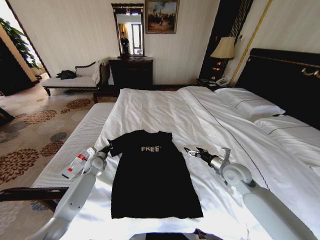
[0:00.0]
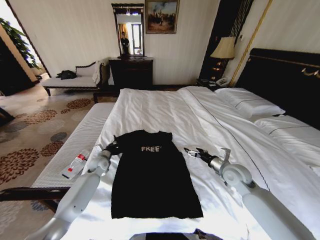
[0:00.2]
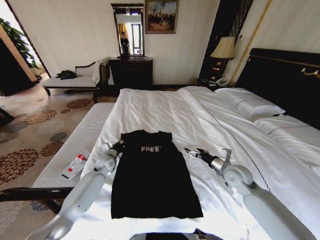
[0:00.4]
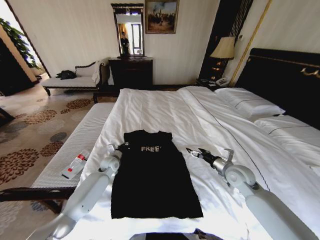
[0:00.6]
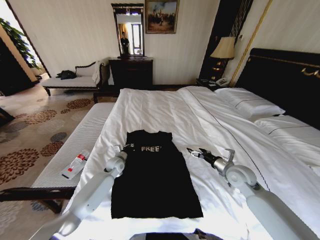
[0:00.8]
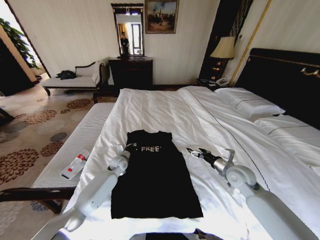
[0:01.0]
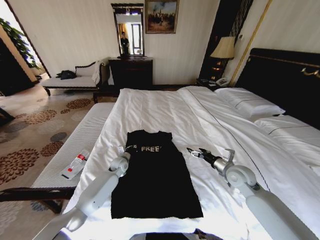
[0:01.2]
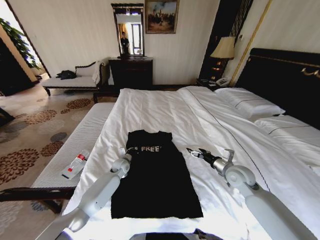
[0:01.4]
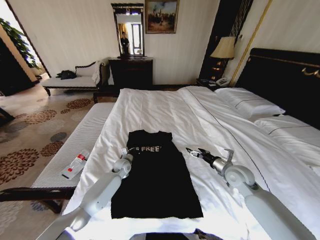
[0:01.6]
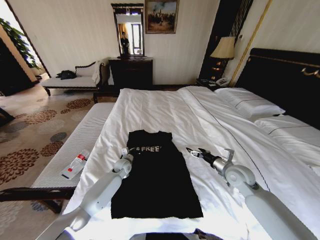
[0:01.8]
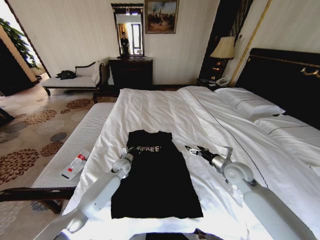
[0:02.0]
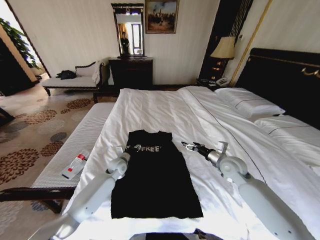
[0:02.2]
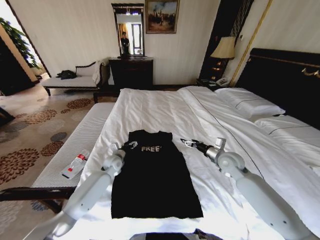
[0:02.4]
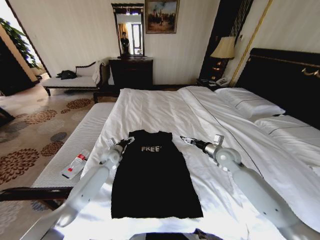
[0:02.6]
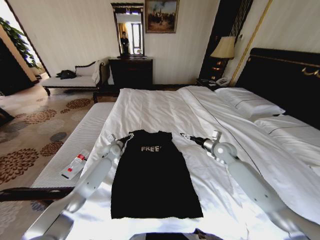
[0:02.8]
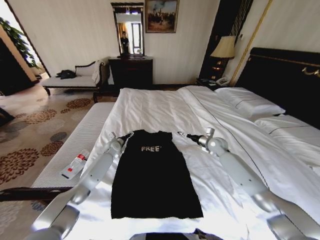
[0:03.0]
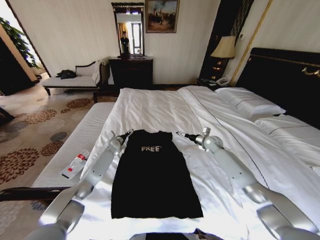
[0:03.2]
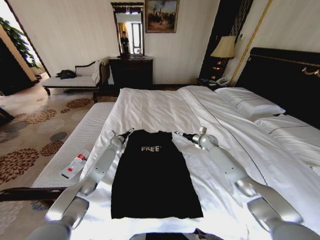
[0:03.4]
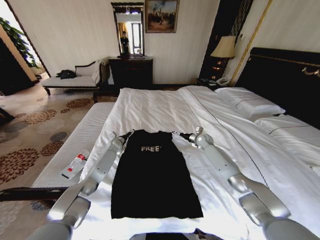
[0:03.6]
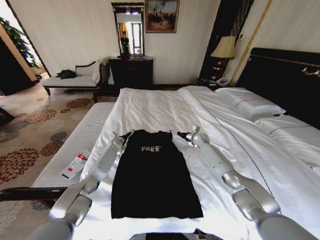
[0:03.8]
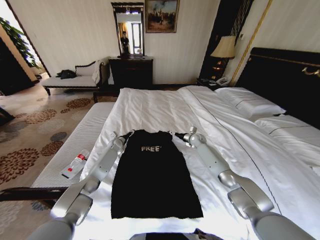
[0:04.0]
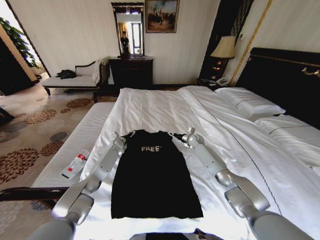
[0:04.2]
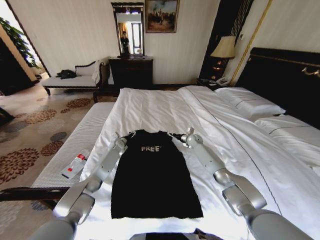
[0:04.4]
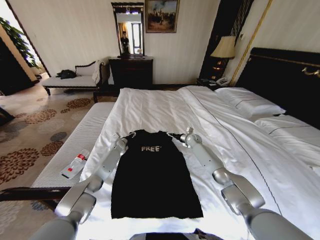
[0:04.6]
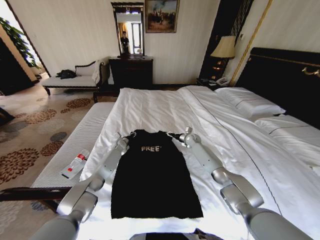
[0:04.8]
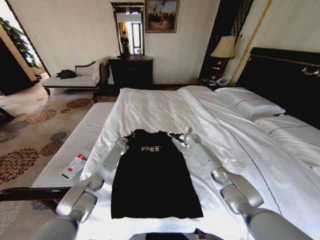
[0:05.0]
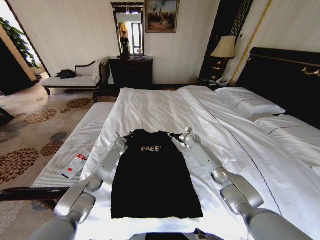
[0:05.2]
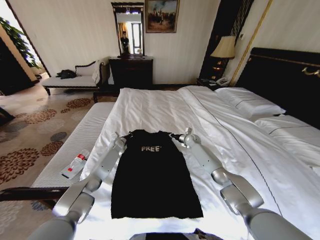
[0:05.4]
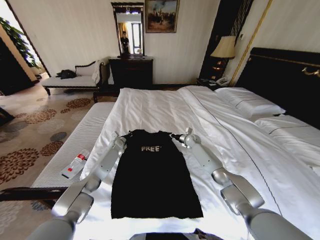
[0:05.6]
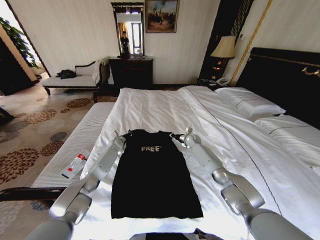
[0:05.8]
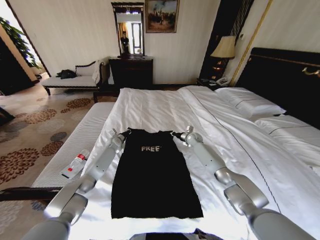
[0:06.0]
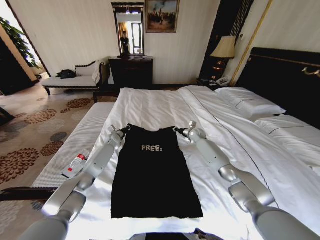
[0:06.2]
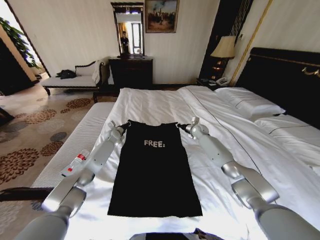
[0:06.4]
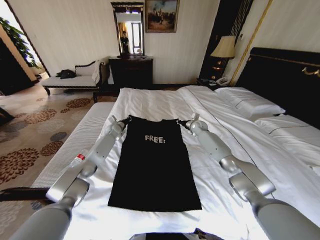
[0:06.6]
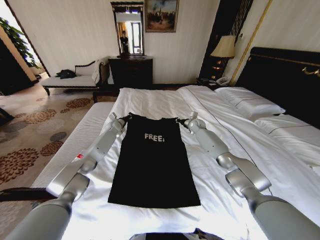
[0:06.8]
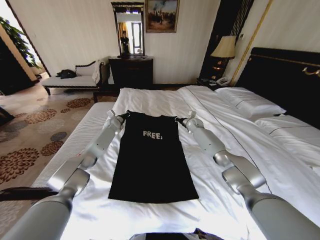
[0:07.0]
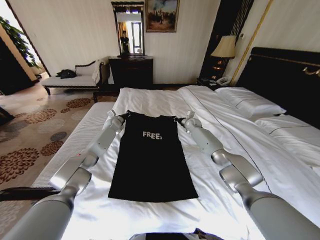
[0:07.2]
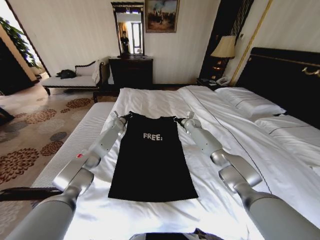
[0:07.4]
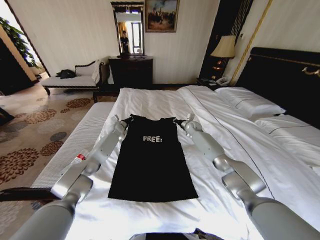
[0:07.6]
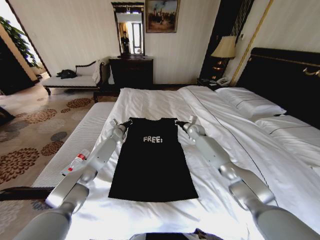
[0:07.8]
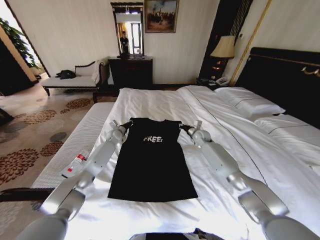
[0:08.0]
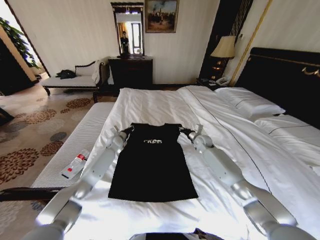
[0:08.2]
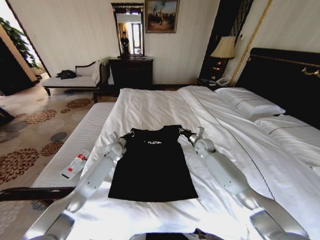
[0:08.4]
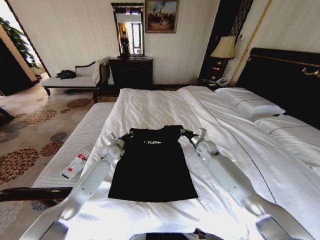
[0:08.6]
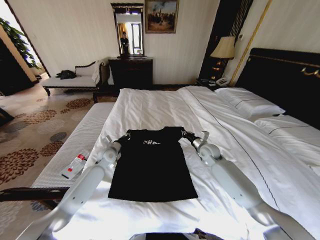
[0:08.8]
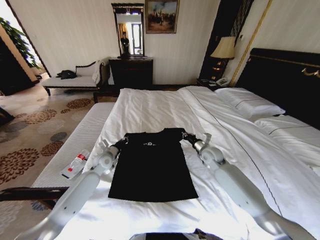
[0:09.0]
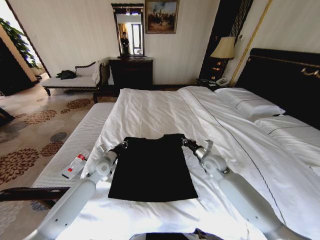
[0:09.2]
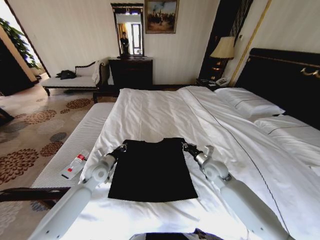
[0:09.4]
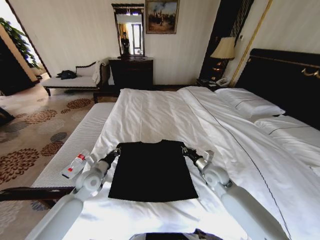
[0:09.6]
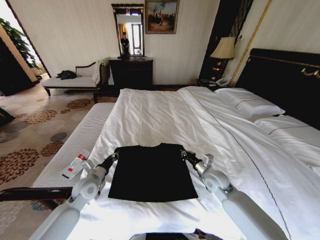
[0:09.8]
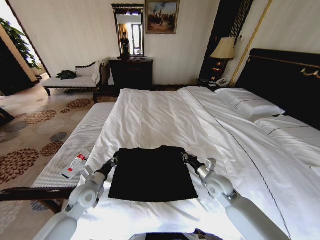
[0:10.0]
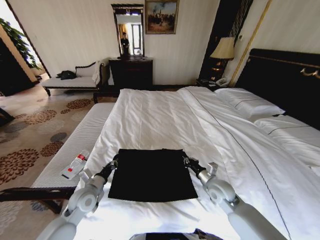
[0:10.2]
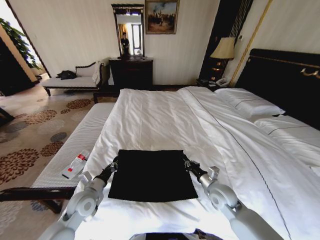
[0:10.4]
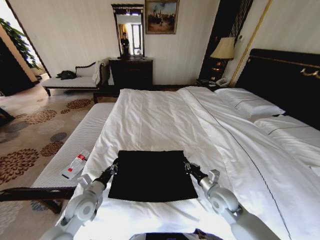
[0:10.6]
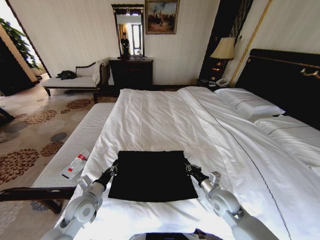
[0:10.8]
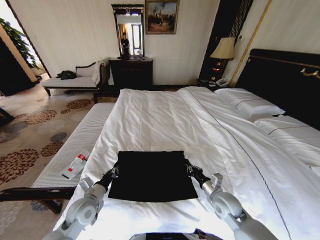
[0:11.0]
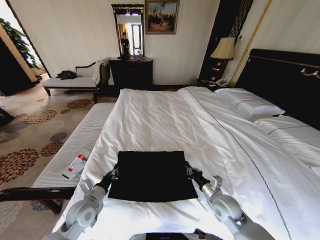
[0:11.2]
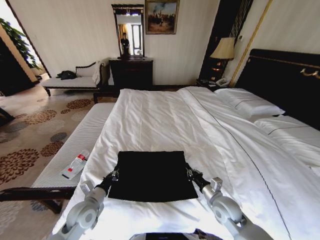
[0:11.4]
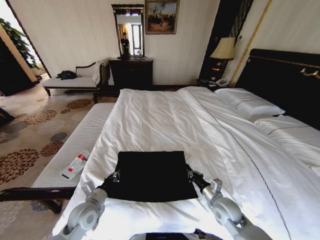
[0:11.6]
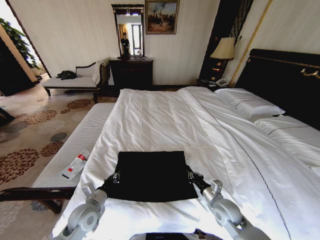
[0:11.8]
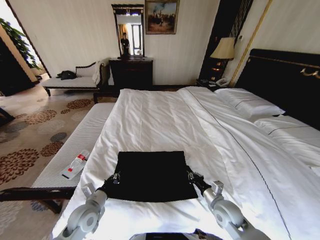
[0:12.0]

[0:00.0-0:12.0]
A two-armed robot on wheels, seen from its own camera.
Task of the whole recording: Fold the clothes on the bed.
0.0 to 1.6 s: The left gripper travels to the right by approximately 15 cm.
1.6 to 3.0 s: The right gripper moves forward, about 20 cm, while the left gripper travels forward, to the left and upward by about 15 cm, and opens.
3.0 to 4.4 s: The left gripper shifts by approximately 5 cm; the right gripper goes approximately 15 cm forward, to the left and downward.
4.4 to 6.0 s: The right gripper closes; the left gripper closes its fingers.
6.0 to 7.6 s: The right gripper heads upward, covering roughly 5 cm; the left gripper goes some 10 cm upward and forward.
7.6 to 9.0 s: Both grippers move backward, approximately 20 cm.
9.0 to 10.4 s: Both grippers travel together backward, roughly 15 cm.
10.4 to 12.0 s: The right gripper goes some 5 cm backward.

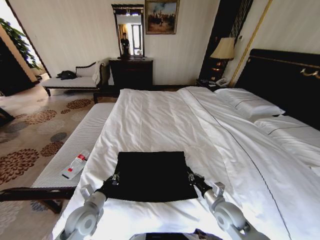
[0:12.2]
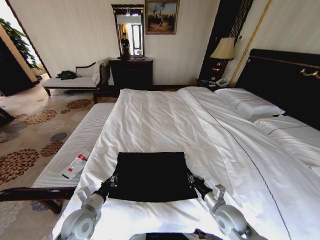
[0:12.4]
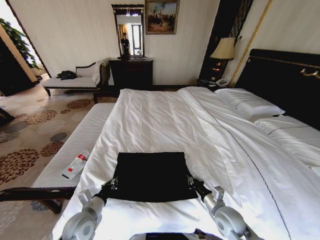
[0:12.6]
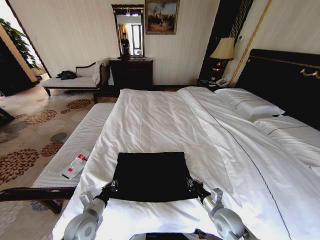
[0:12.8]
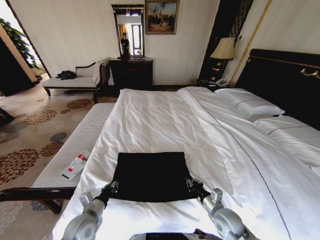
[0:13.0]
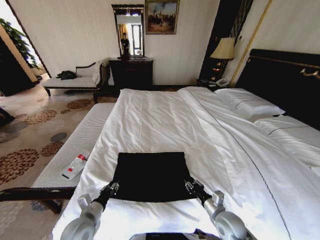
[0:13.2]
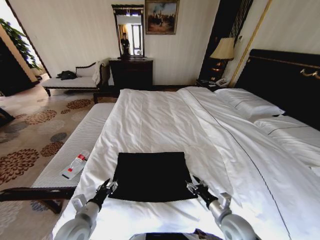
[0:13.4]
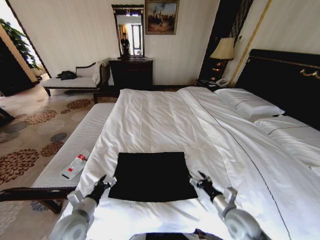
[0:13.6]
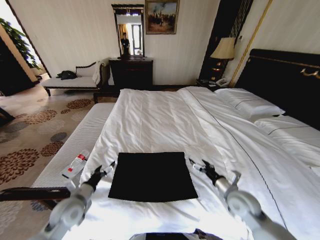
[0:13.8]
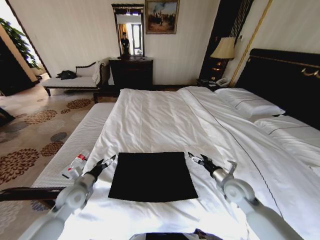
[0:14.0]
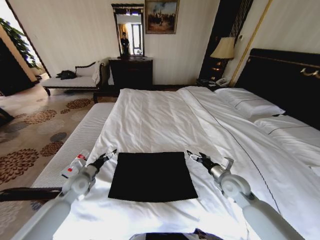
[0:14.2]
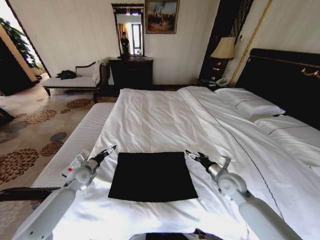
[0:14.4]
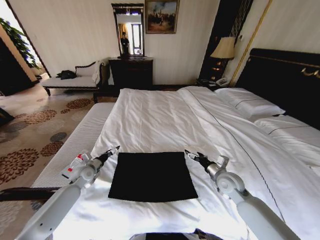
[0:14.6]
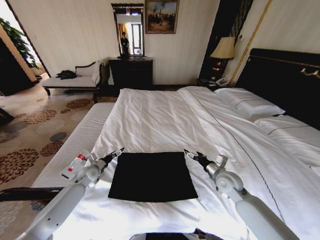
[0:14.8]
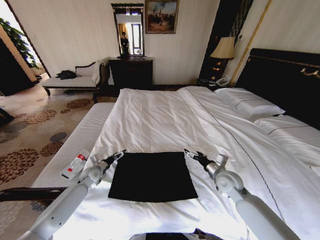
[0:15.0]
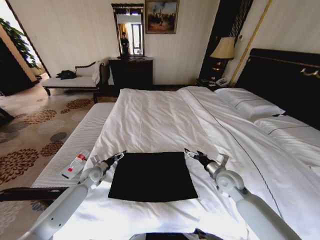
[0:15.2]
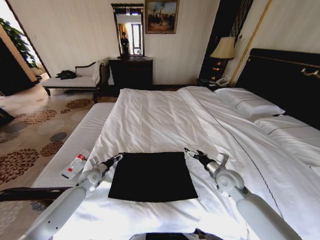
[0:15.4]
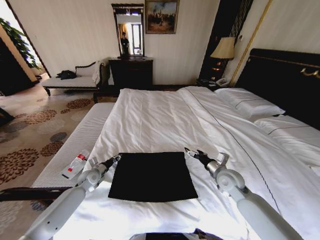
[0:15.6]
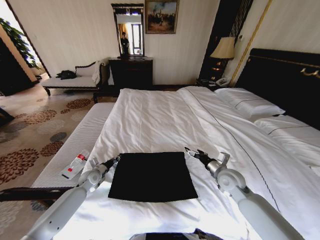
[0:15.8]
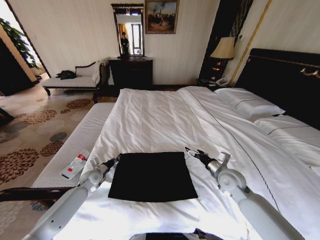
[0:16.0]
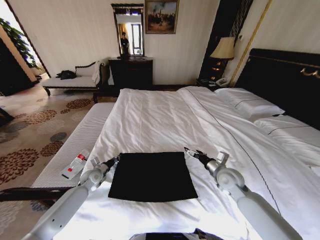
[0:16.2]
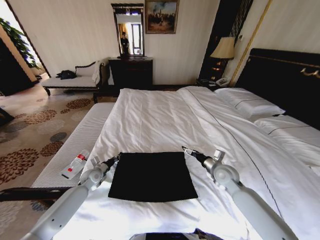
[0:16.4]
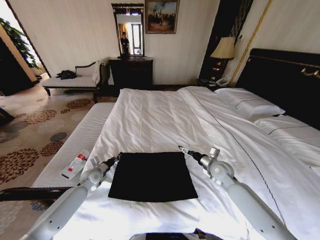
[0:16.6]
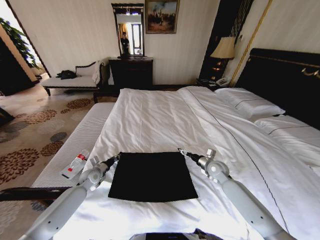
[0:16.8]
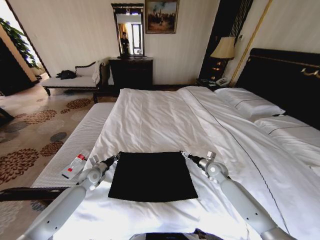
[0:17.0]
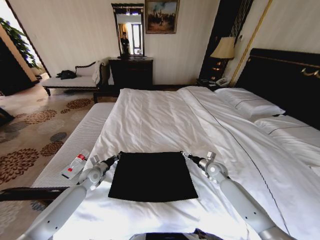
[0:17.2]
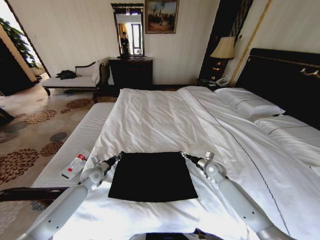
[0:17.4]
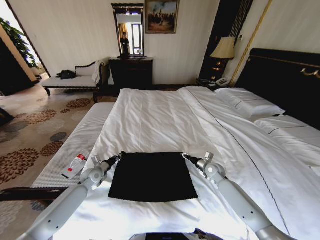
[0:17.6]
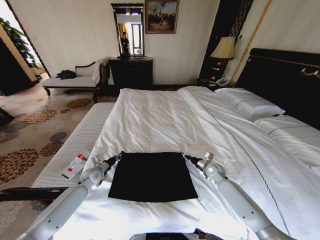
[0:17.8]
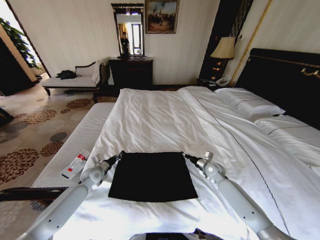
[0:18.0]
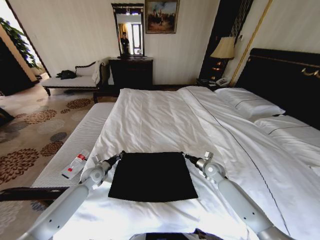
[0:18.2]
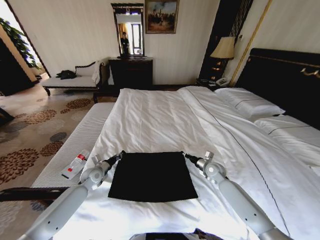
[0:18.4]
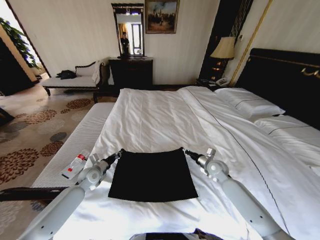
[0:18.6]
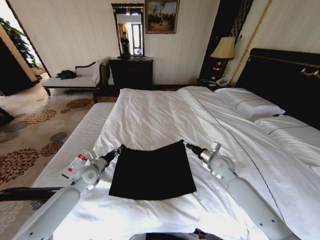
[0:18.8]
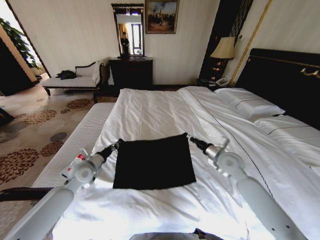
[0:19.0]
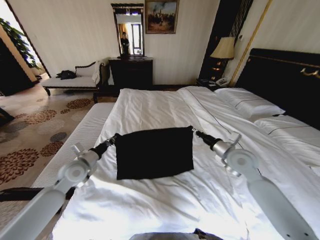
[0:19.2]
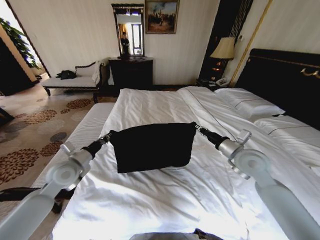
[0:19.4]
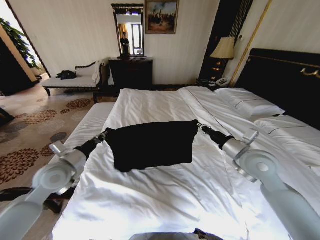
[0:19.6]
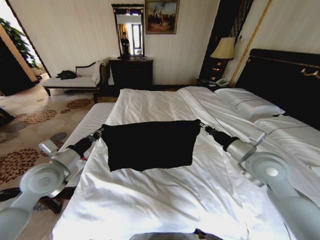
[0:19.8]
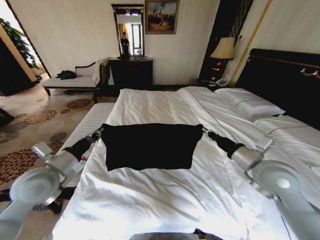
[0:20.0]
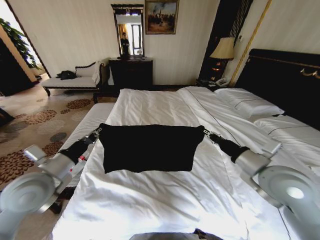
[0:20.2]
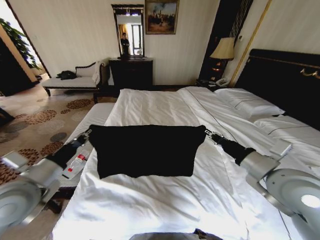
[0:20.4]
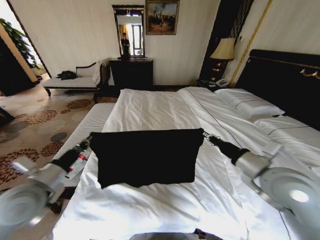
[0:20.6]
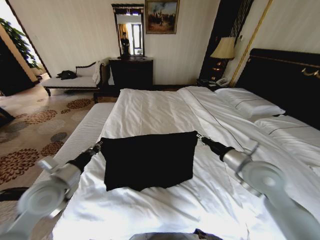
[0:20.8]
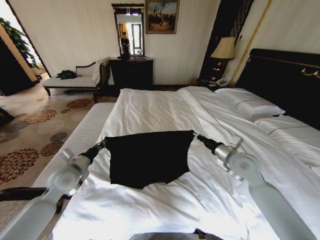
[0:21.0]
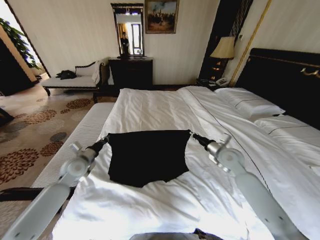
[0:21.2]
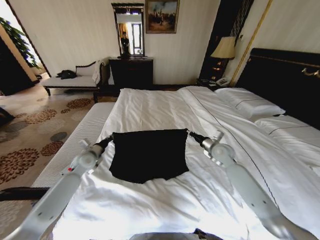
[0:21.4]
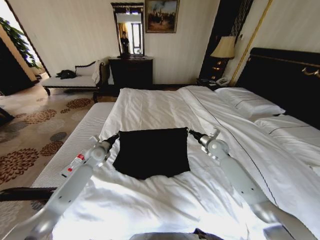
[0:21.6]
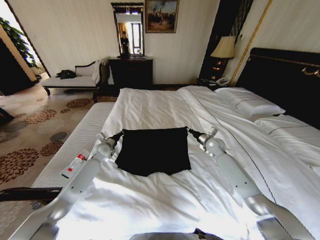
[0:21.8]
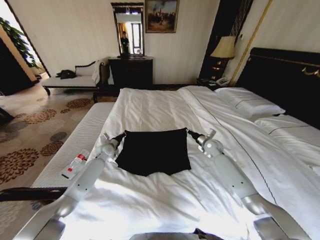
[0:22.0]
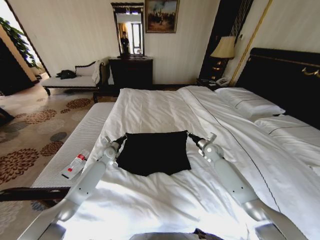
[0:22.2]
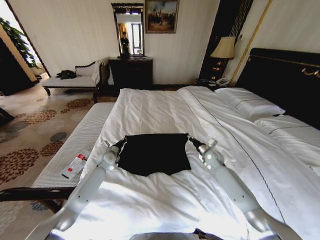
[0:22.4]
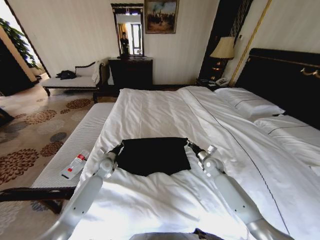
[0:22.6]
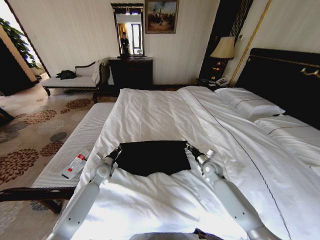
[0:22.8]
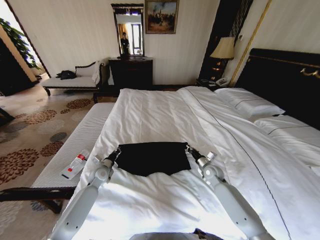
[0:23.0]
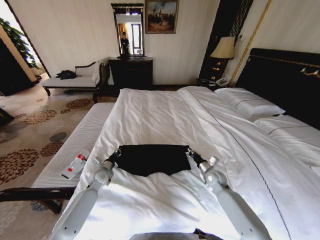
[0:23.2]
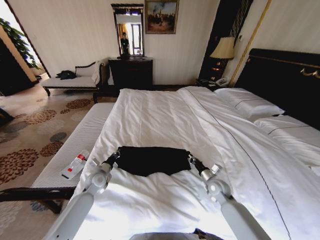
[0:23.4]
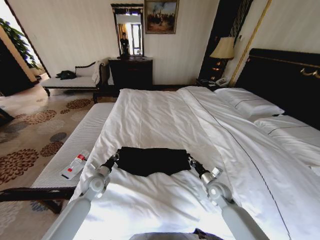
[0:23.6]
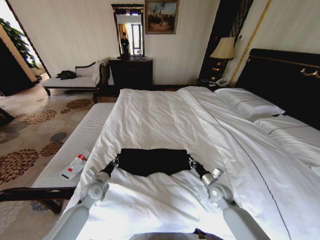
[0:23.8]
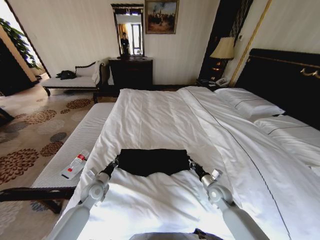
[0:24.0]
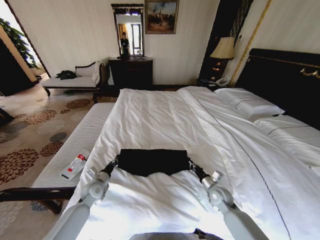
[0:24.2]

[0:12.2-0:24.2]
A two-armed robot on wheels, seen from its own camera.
Task of the whole recording: Fold the clothes on the bed.
12.2 to 13.8 s: The right gripper travels upward by some 5 cm, and opens its fingers. Meanwhile the left gripper changes place by some 5 cm, and opens its fingers.
13.8 to 15.2 s: The right gripper goes some 10 cm forward. Meanwhile the left gripper goes approximately 20 cm forward and downward.
15.2 to 16.6 s: The right gripper heads forward, covering roughly 5 cm; the left gripper closes up.
16.6 to 18.2 s: The right gripper is displaced downward by approximately 5 cm, and closes its fingers.
18.2 to 19.8 s: Both grippers travel together upward and backward, approximately 25 cm.
19.8 to 21.2 s: Both grippers move downward and forward, about 10 cm.
21.2 to 22.6 s: The right gripper heads downward and forward, covering about 15 cm. Meanwhile the left gripper travels downward, forward and to the right by approximately 15 cm.
22.6 to 24.2 s: Both grippers travel together backward, about 15 cm.
